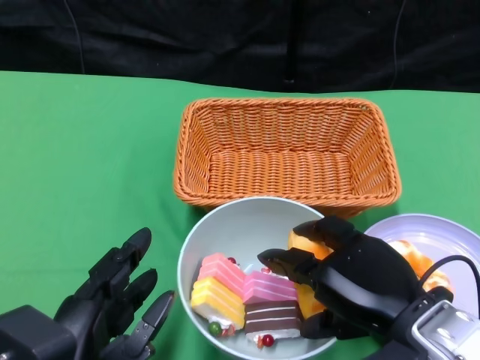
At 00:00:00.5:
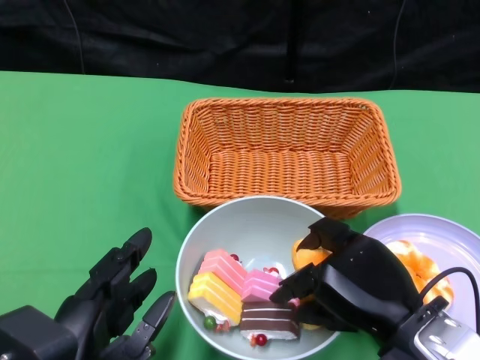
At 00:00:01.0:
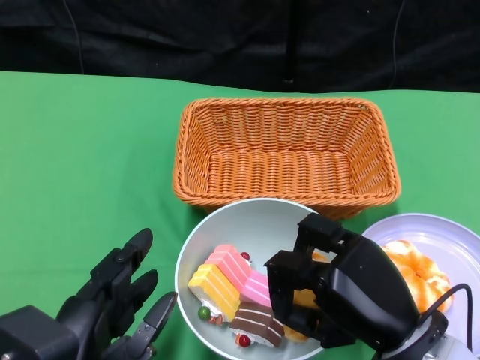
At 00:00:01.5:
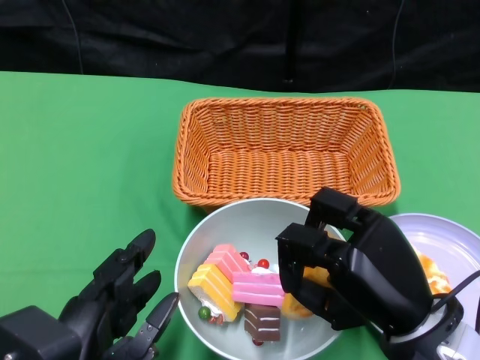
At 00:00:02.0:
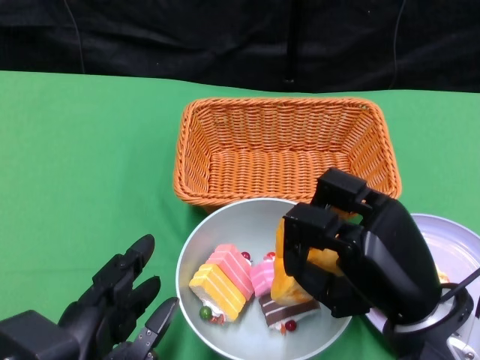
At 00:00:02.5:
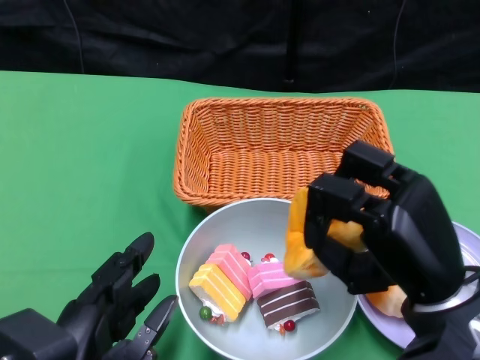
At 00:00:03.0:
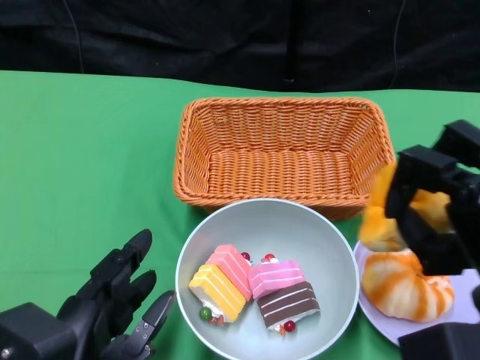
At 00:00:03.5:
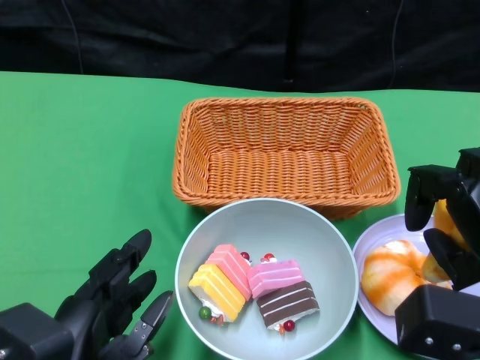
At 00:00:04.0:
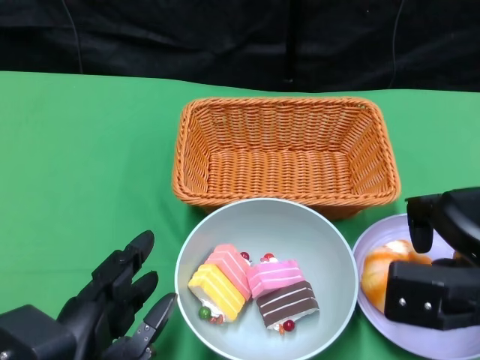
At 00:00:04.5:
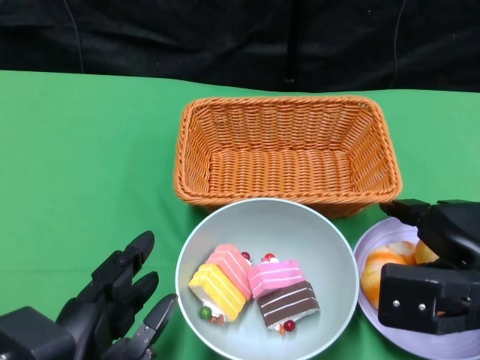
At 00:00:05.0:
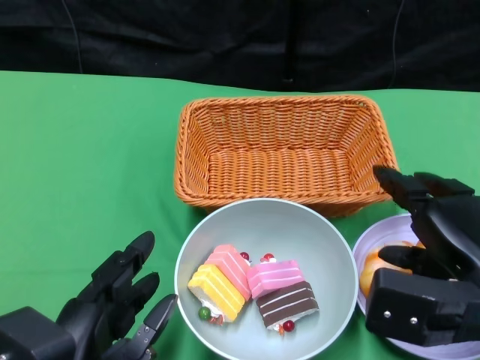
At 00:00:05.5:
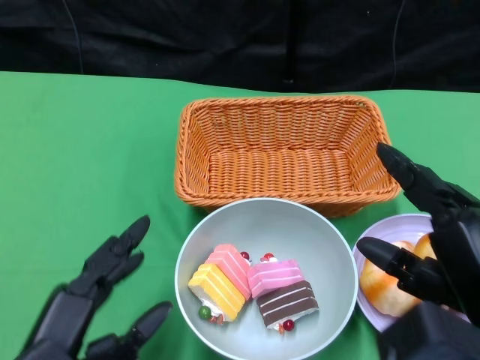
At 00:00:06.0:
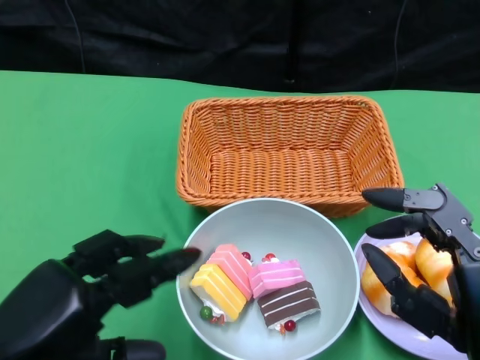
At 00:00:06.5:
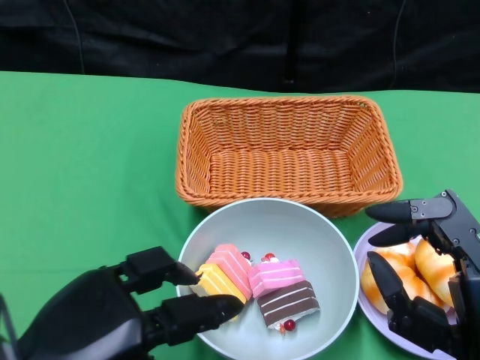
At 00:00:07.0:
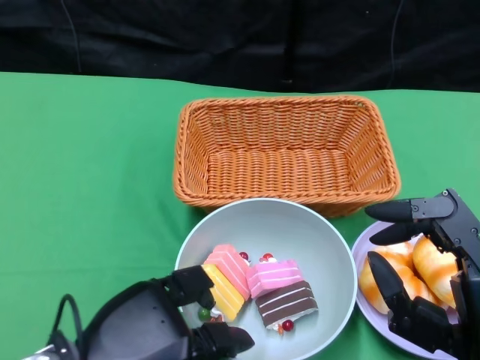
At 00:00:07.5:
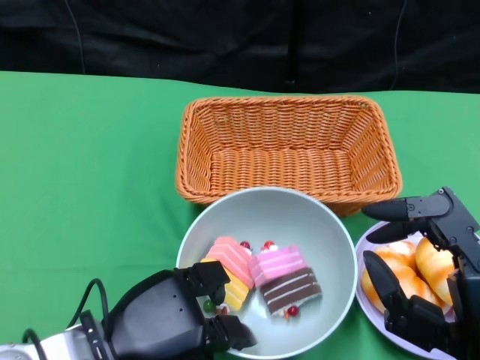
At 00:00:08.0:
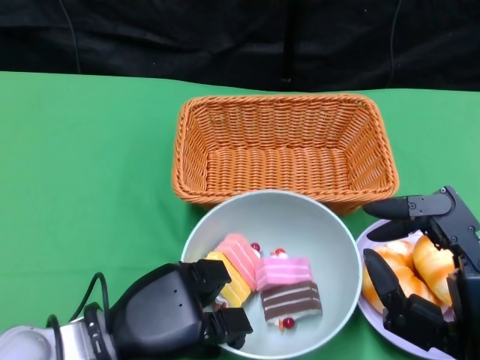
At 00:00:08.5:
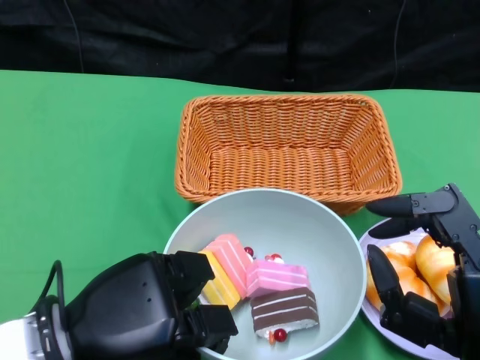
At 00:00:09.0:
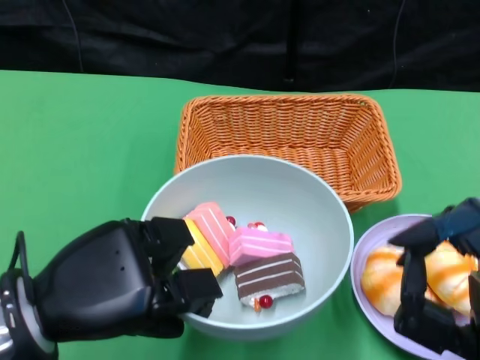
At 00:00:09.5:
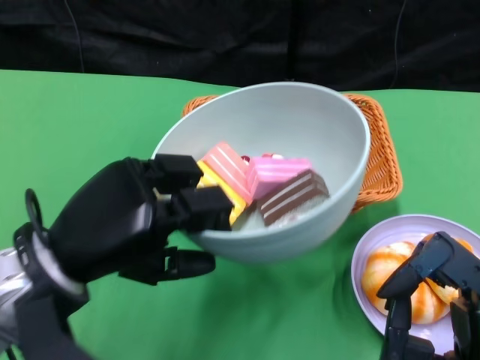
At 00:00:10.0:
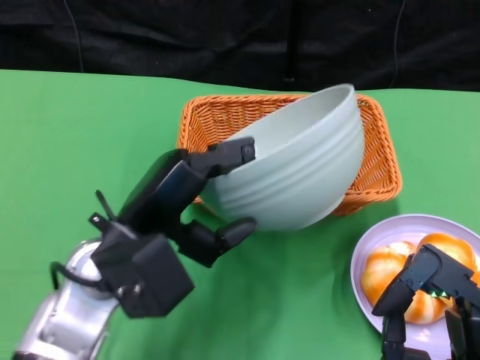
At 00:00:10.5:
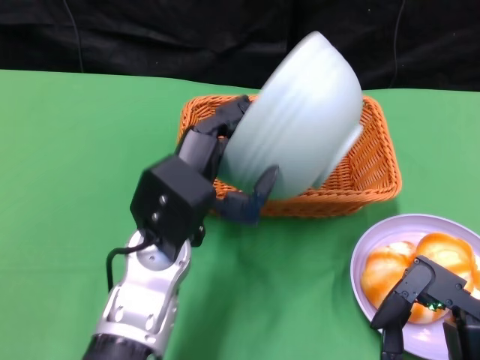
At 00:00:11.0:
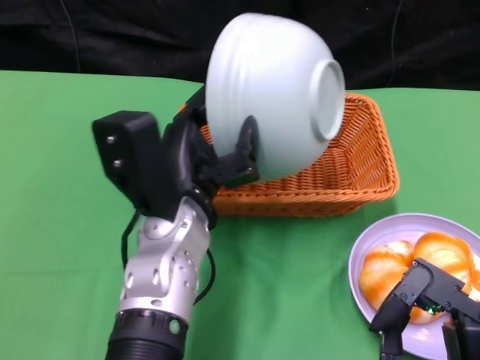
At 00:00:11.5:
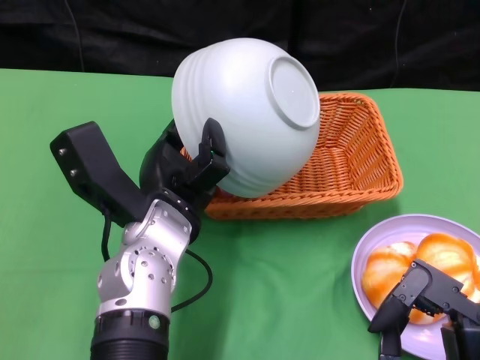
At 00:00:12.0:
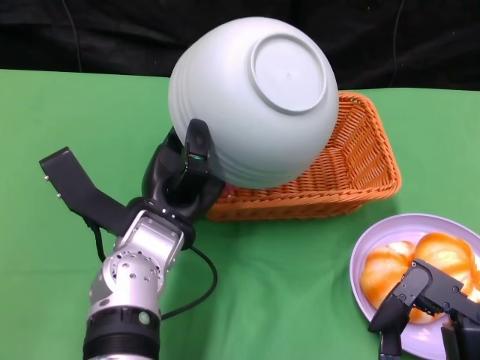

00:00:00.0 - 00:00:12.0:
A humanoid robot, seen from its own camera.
Step, 00:00:00.0 - 00:00:05.0: Pick up the bread with the right gripper and place it on the plate.
Step, 00:00:05.5 - 00:00:08.0: Grasp the bowl with the left gripper.
00:00:02.0 - 00:00:04.0: The right hand goes some 10 cm to the right.
00:00:04.0 - 00:00:06.0: The left hand moves to the left, some 5 cm, while the right hand is displaced backward by some 10 cm.
00:00:06.0 - 00:00:08.0: The left hand goes about 15 cm downward, to the right and forward.
00:00:08.0 - 00:00:10.0: The left hand moves upward, about 10 cm.
00:00:10.0 - 00:00:12.0: The left hand shifts by roughly 5 cm.

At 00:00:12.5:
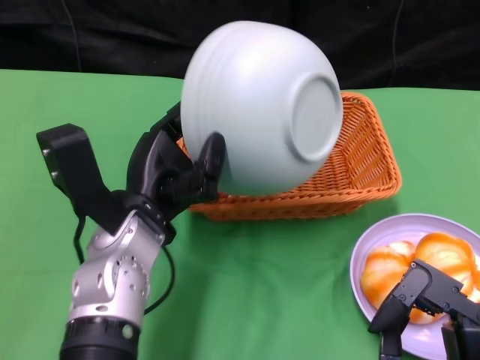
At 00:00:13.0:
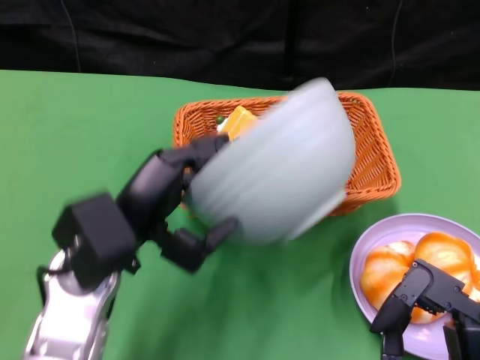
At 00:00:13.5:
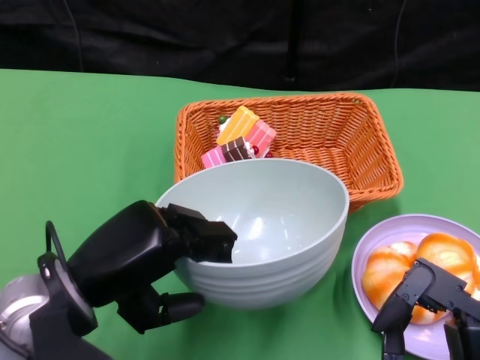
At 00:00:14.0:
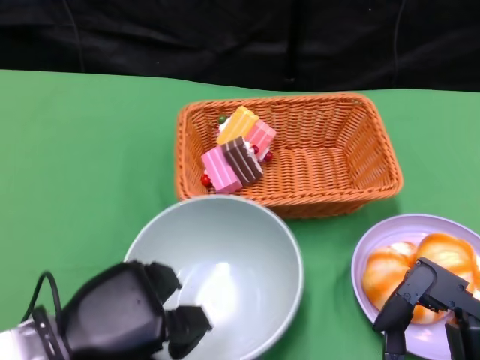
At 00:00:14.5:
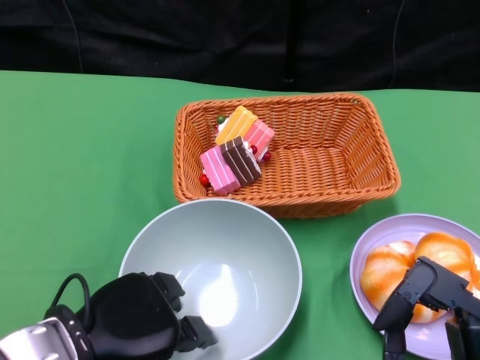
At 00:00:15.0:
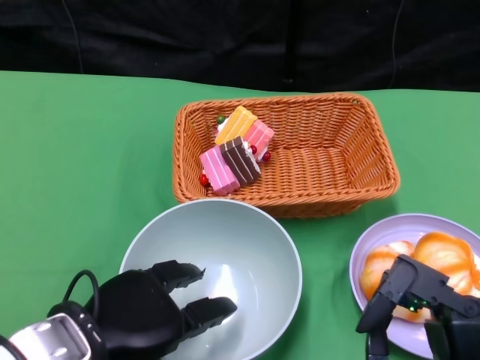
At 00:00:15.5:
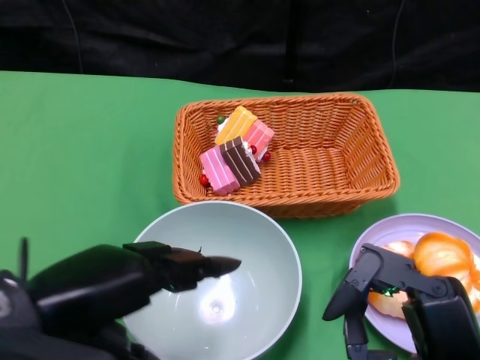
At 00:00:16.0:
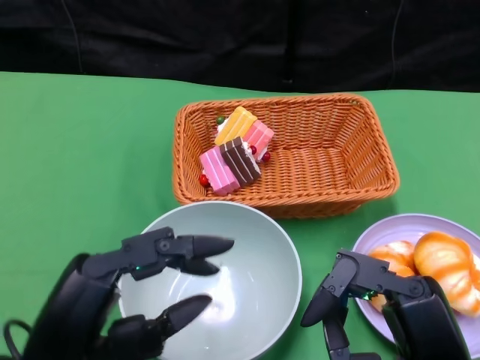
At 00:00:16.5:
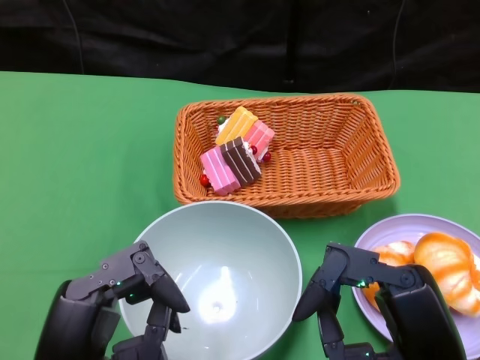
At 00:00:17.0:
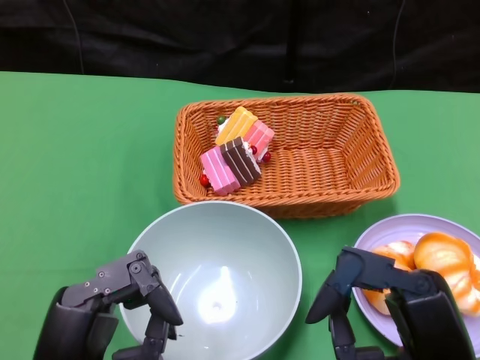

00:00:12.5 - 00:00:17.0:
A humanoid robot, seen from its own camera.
Step, 00:00:13.0 - 00:00:14.0: Place the bowl on the table with the left gripper.
00:00:12.5 - 00:00:14.5: The left hand heads backward and to the left, covering roughly 10 cm.
00:00:14.5 - 00:00:17.0: The left hand heads backward, covering some 5 cm, and reaches some 10 cm upward, then returns.
